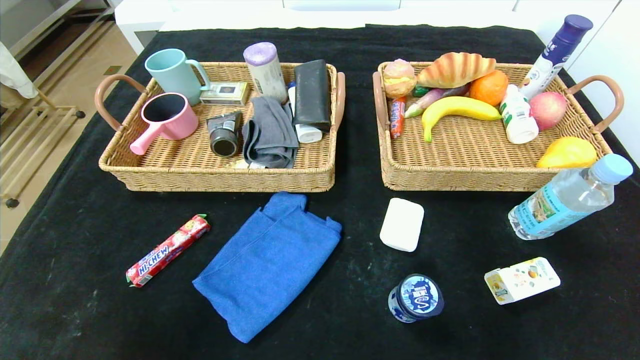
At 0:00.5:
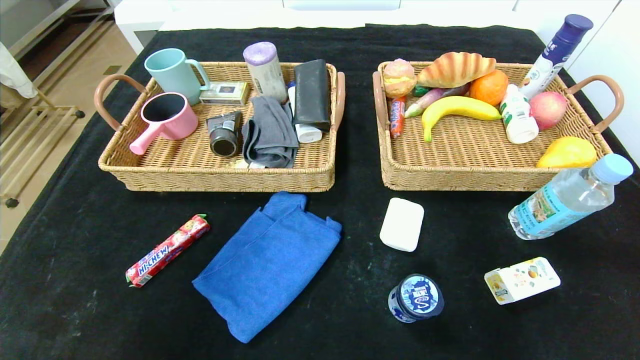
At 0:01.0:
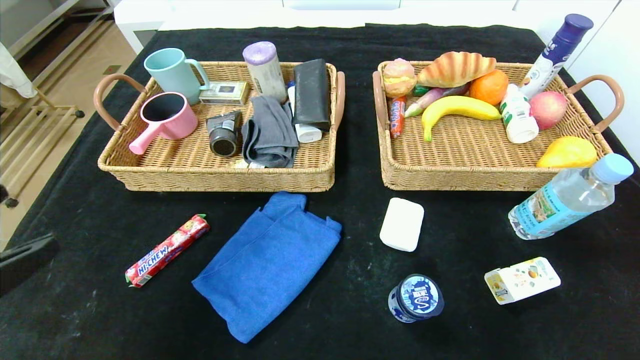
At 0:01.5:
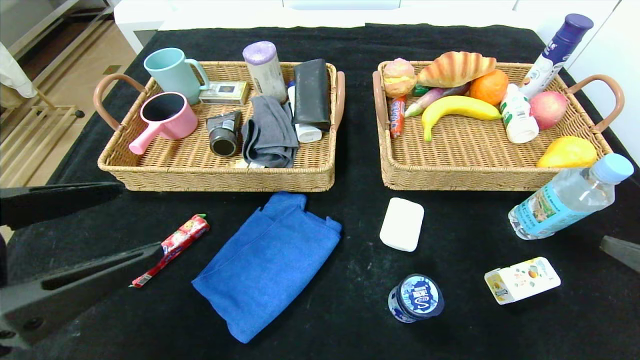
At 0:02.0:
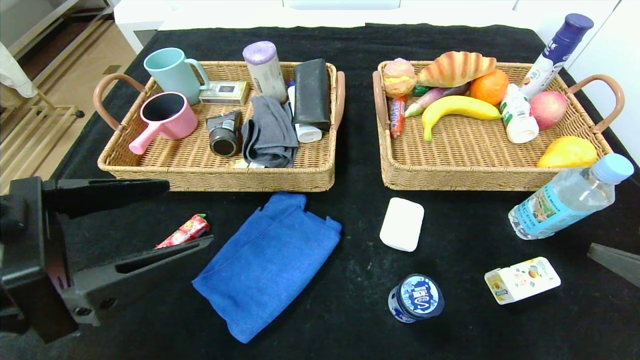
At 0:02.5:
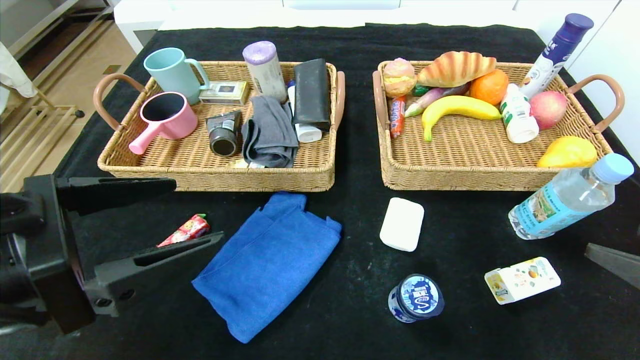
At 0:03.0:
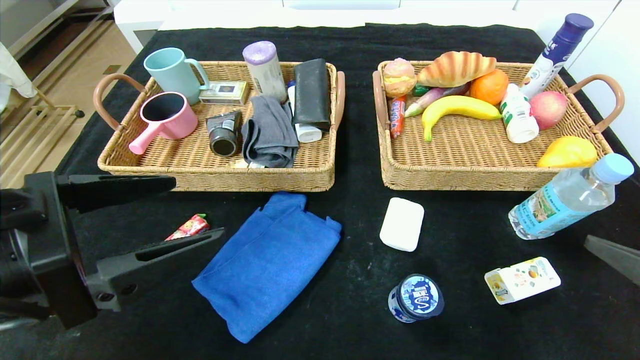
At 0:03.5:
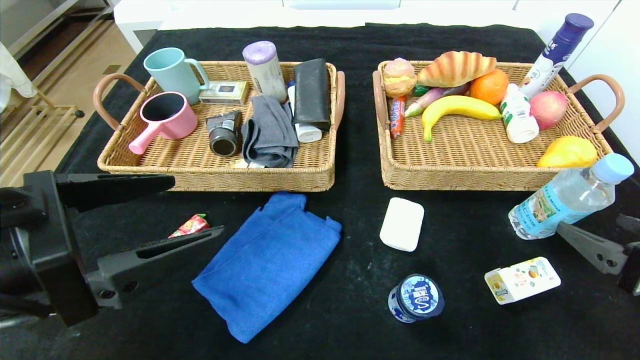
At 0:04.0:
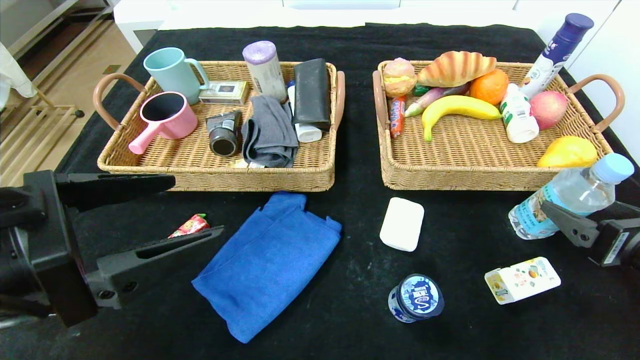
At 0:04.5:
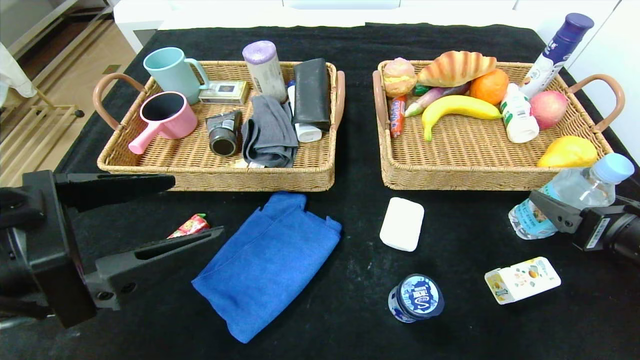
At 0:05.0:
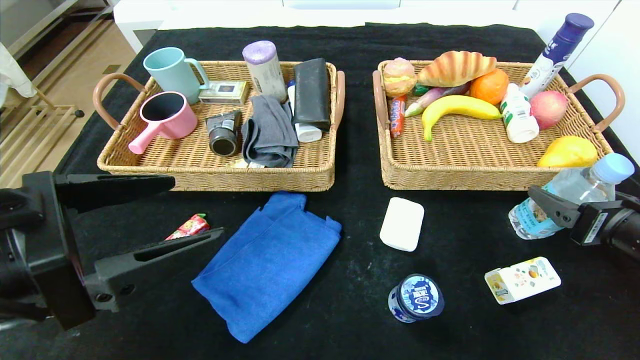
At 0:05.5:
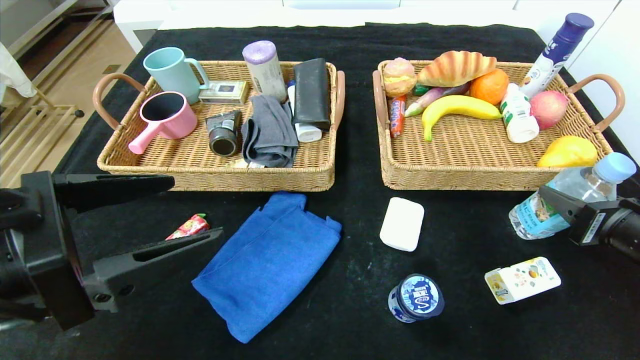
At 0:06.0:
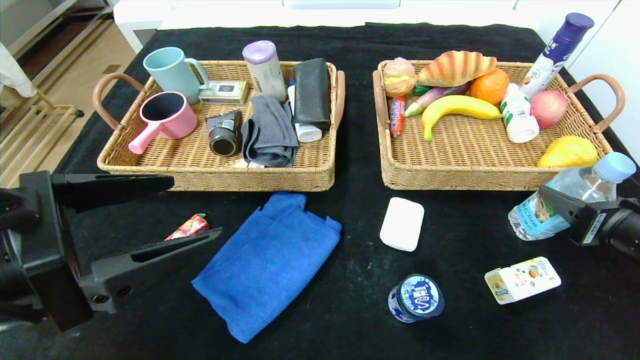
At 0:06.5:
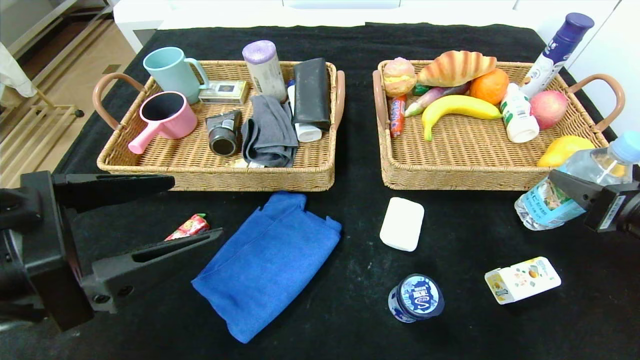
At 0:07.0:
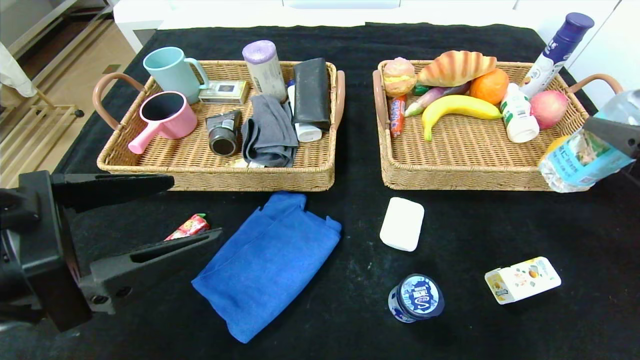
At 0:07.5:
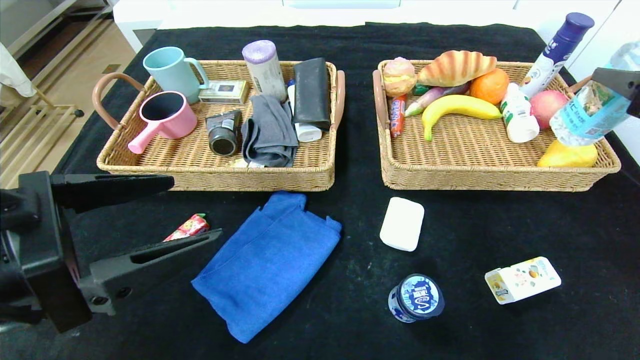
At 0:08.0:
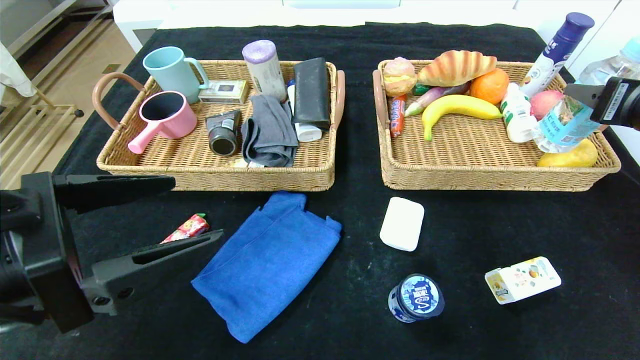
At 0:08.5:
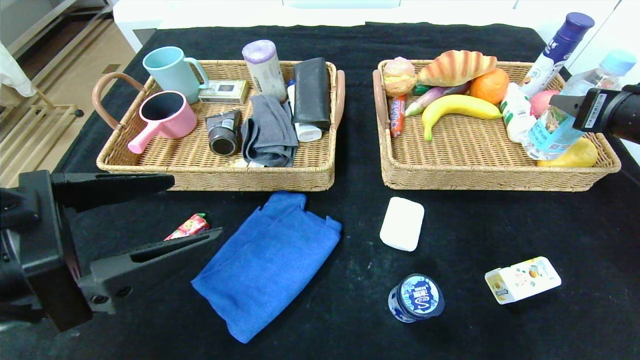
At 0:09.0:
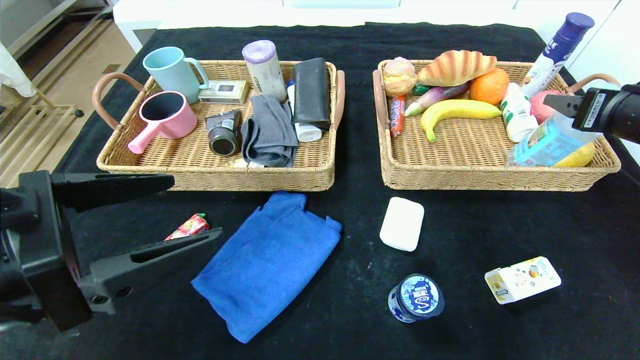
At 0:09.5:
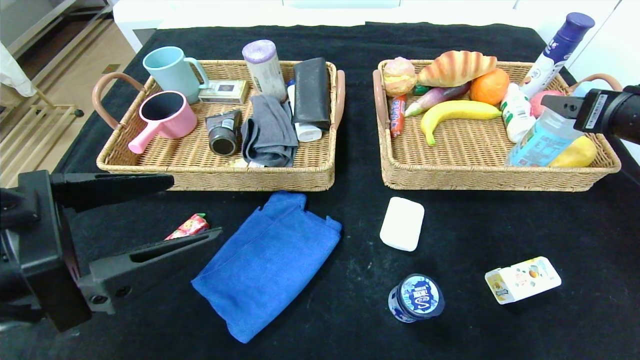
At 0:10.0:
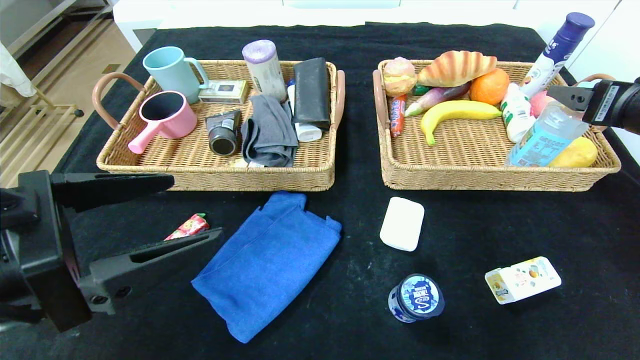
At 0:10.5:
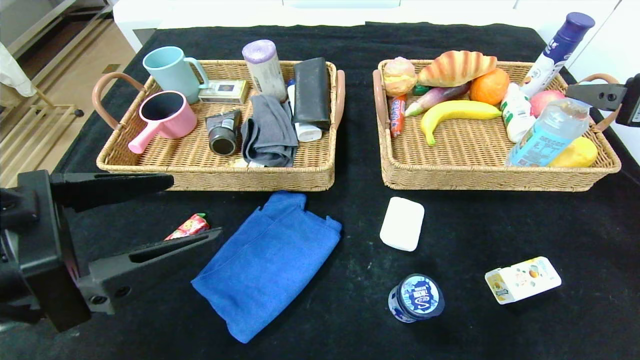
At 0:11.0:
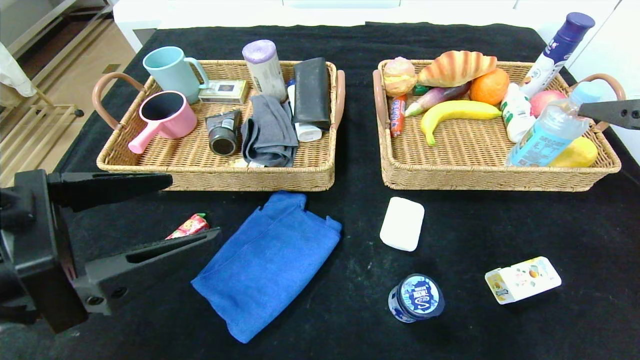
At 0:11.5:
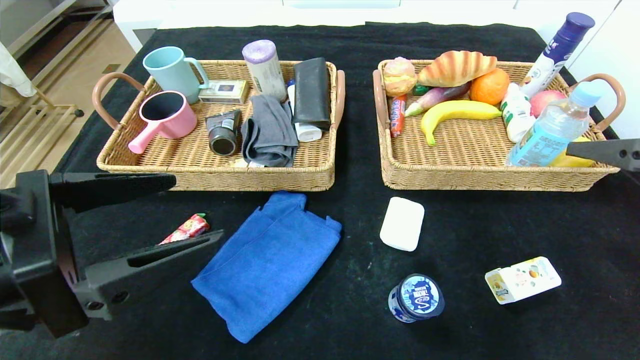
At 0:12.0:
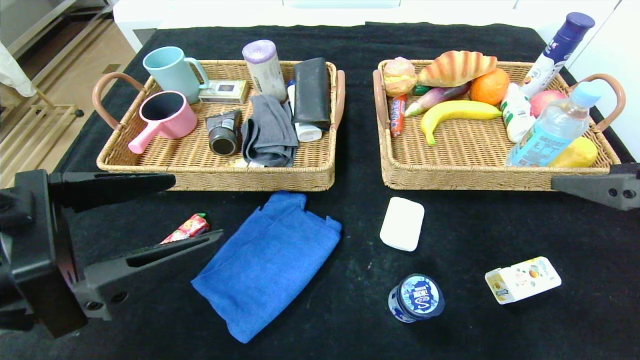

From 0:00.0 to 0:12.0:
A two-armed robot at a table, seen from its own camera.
Step, from 0:00.0 to 0:11.5: Grasp the soda water and put it in the right basket.
From 0:00.0 to 0:02.0: The right gripper is displaced forward and upward by some 15 cm; the left gripper goes approximately 20 cm forward, upward and to the right.
From 0:02.0 to 0:04.0: The right gripper heads forward and downward, covering approximately 10 cm.
From 0:04.0 to 0:06.0: The right gripper closes up.
From 0:06.0 to 0:08.0: The right gripper heads upward and forward, covering approximately 15 cm.
From 0:08.0 to 0:10.0: The right gripper opens up.
From 0:10.0 to 0:12.0: The right gripper shifts about 10 cm backward.

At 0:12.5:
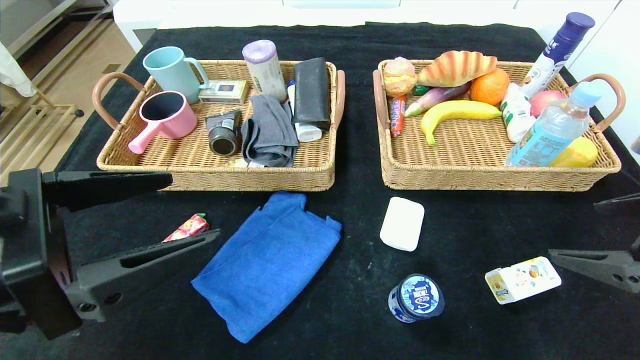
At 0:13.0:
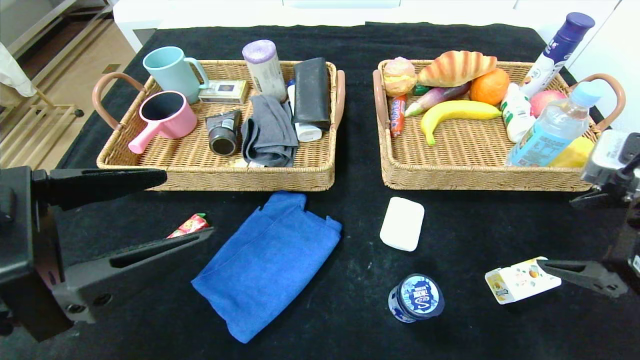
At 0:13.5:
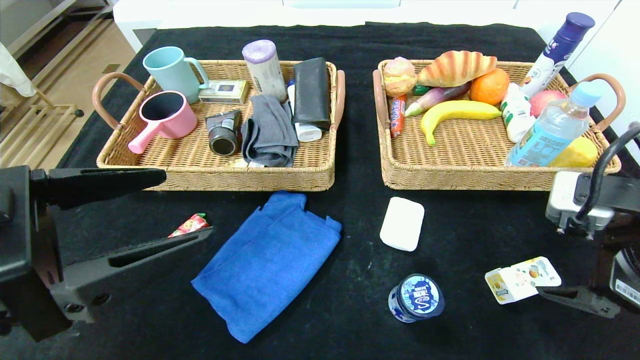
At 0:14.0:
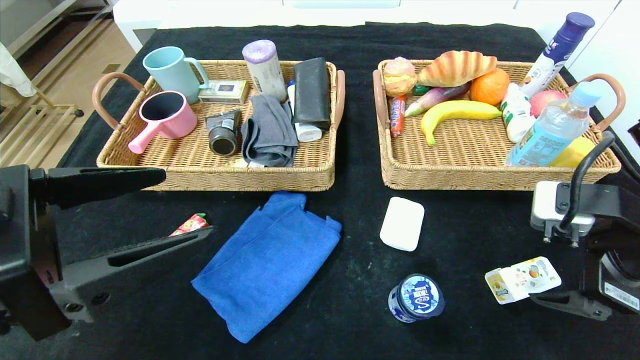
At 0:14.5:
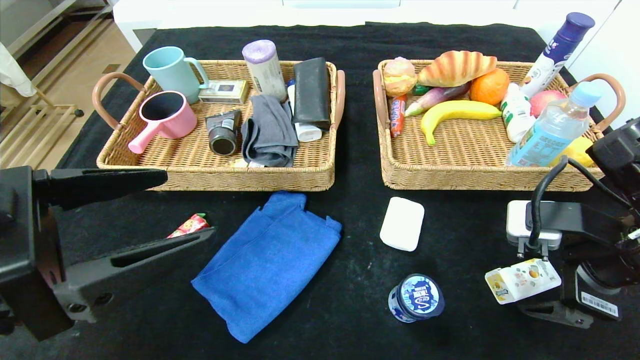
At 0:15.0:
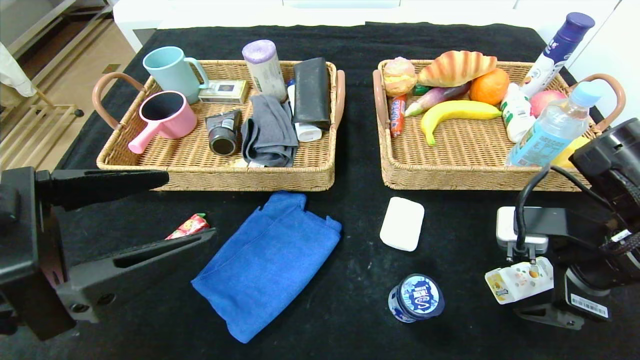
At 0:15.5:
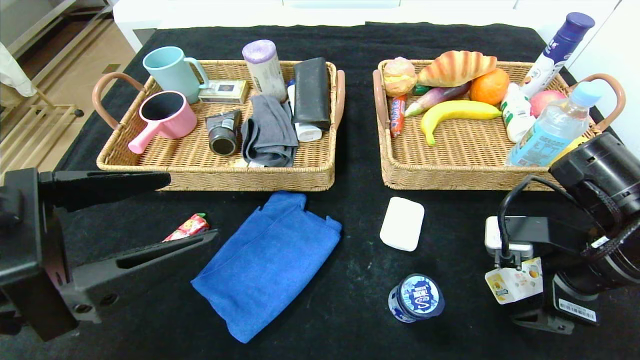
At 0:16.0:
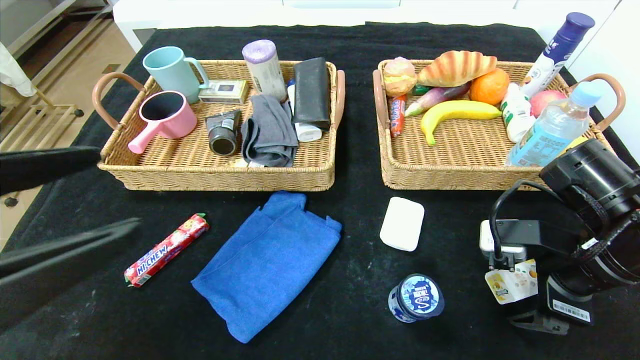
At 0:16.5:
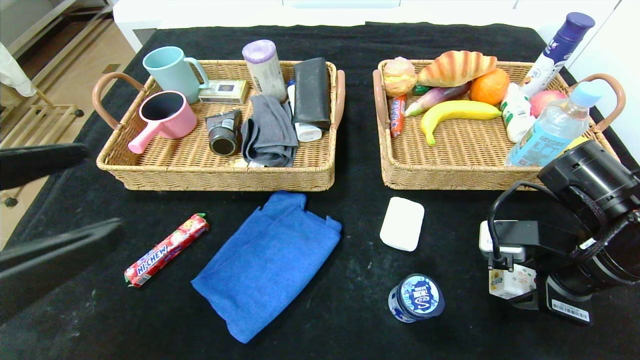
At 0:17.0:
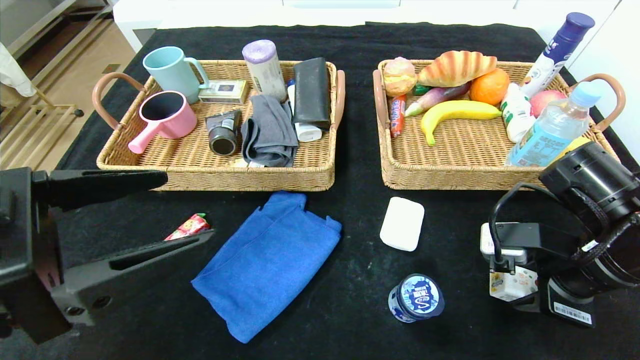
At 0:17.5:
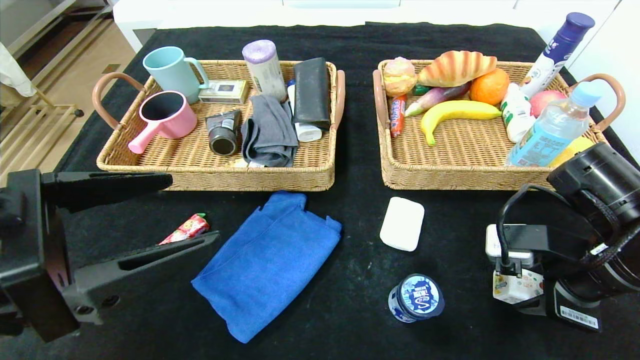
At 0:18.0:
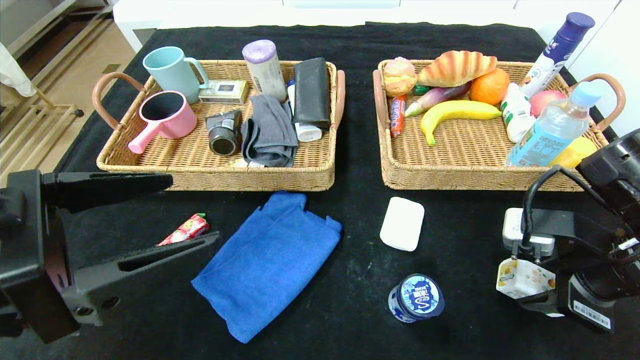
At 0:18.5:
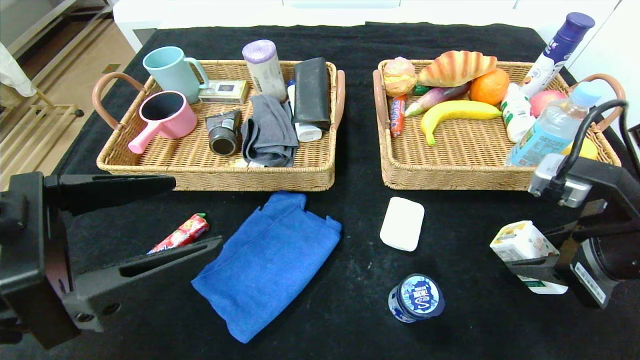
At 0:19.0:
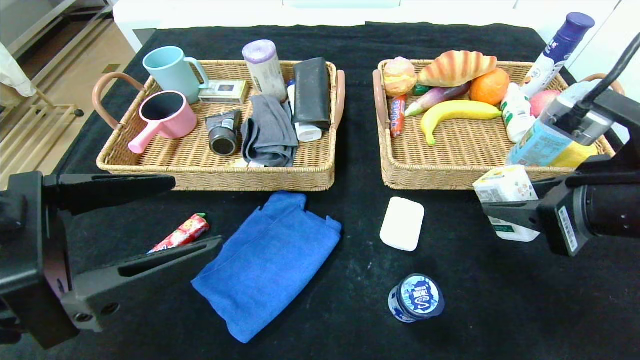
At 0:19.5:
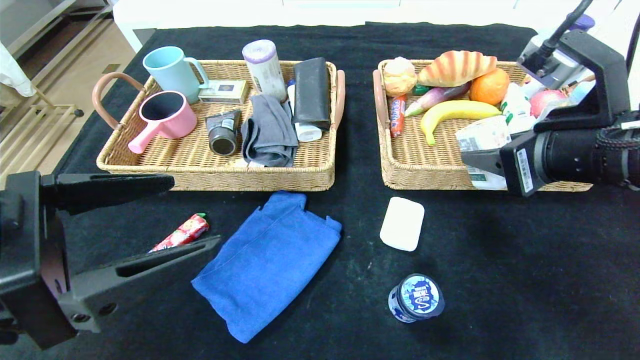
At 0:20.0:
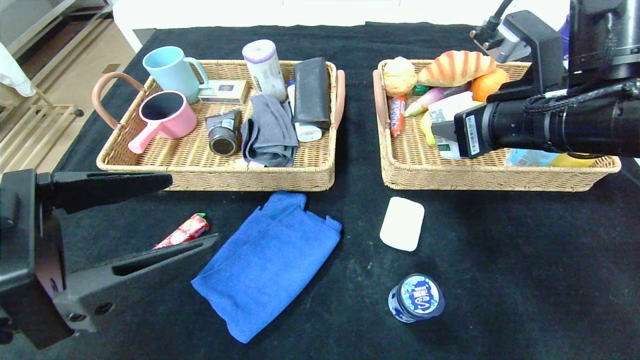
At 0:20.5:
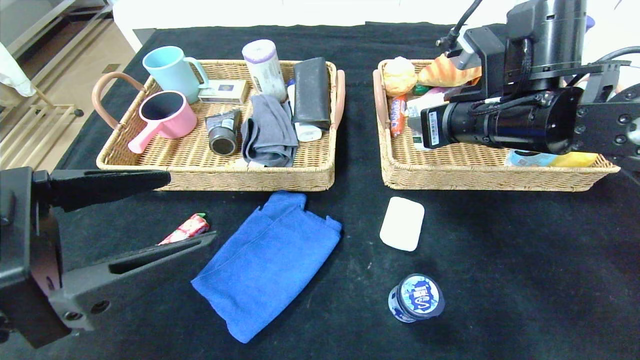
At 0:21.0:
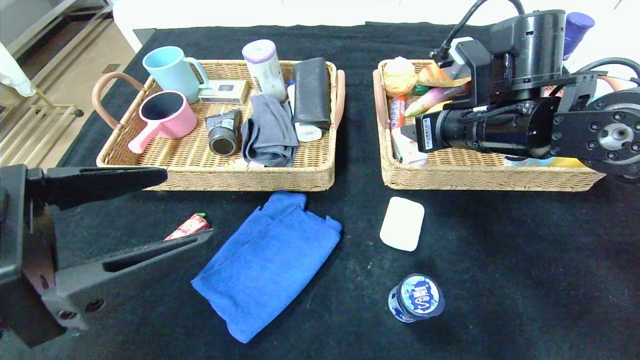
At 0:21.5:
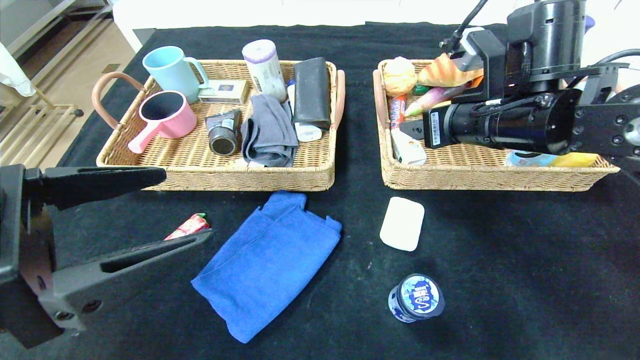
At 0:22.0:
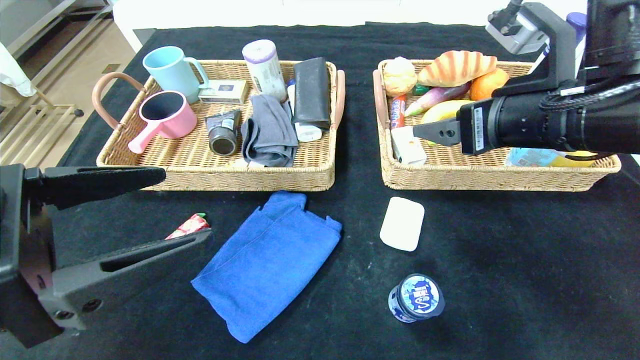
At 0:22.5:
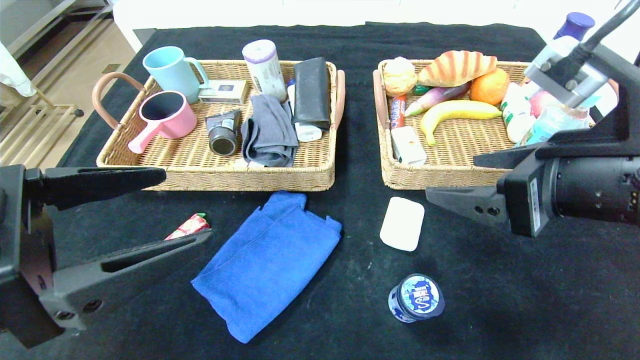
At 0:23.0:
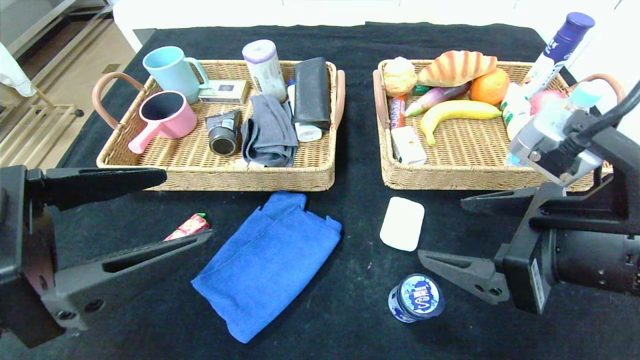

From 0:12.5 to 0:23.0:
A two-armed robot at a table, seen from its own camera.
Step, from 0:12.5 to 0:22.0: Grasp the square chewing gum and put it in the right basket.
From 0:12.5 to 0:14.5: The right gripper moves forward, some 5 cm.
From 0:14.5 to 0:16.5: The right gripper closes.
From 0:16.5 to 0:19.0: The right gripper moves upward, about 10 cm.
From 0:19.0 to 0:21.0: The right gripper shifts roughly 15 cm forward and to the left.
From 0:21.0 to 0:23.0: The right gripper moves backward, some 15 cm, and opens up.
